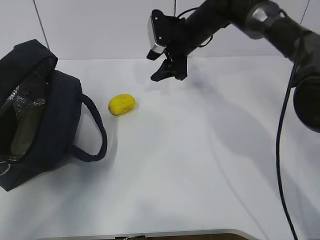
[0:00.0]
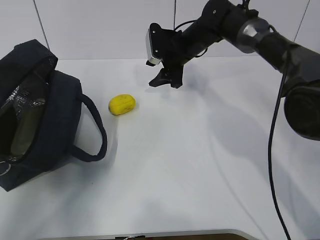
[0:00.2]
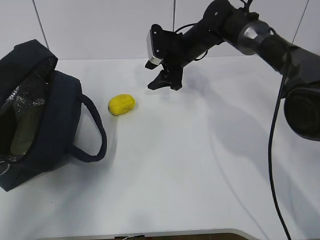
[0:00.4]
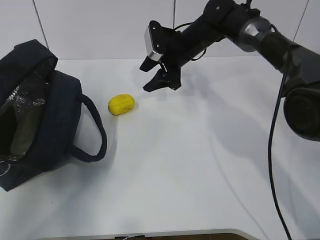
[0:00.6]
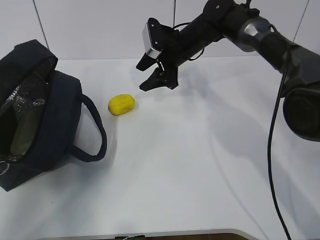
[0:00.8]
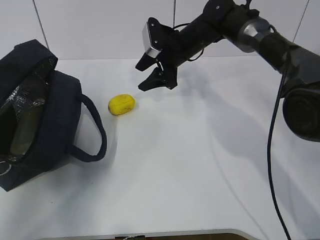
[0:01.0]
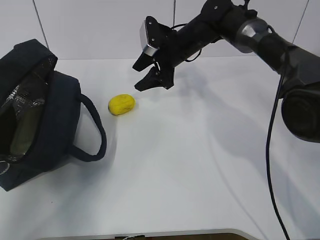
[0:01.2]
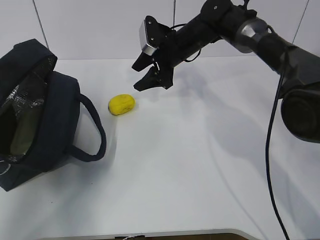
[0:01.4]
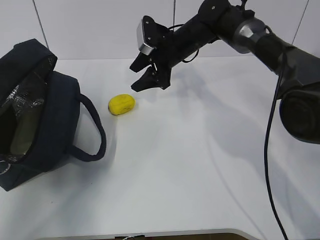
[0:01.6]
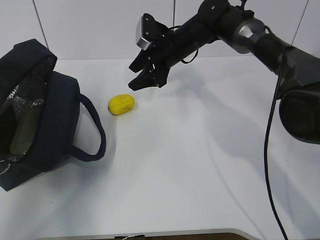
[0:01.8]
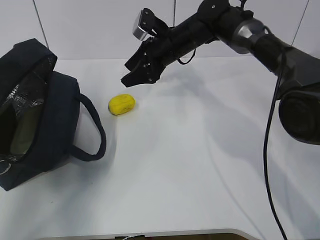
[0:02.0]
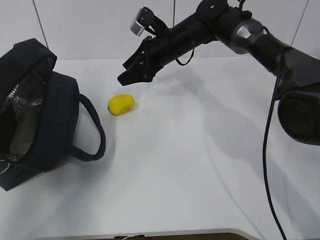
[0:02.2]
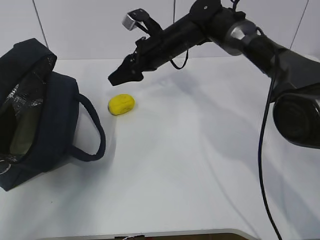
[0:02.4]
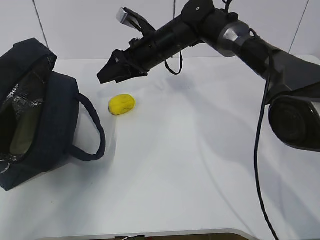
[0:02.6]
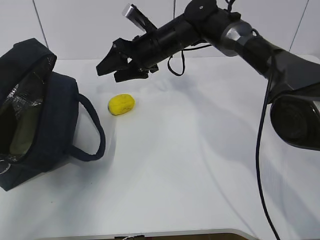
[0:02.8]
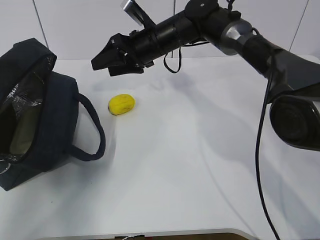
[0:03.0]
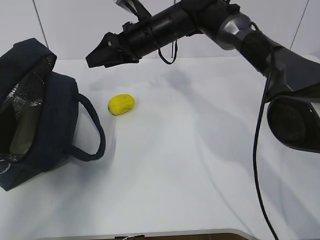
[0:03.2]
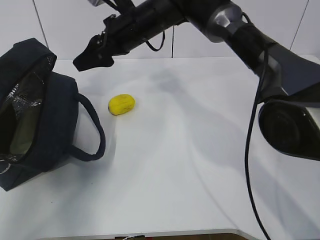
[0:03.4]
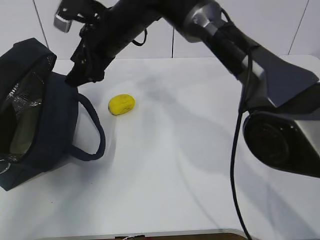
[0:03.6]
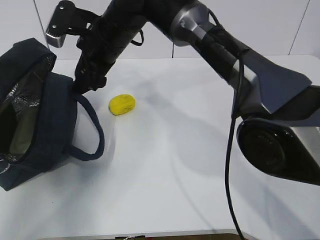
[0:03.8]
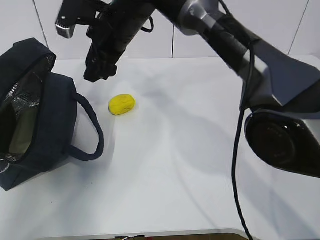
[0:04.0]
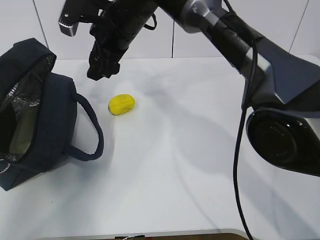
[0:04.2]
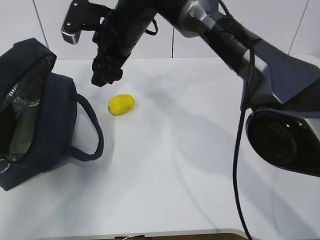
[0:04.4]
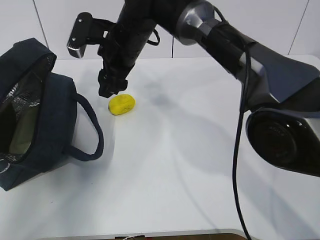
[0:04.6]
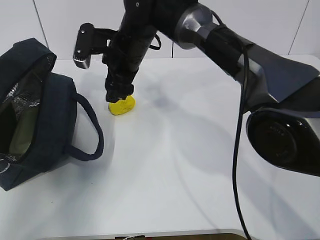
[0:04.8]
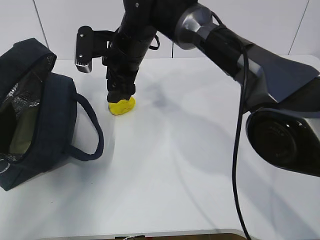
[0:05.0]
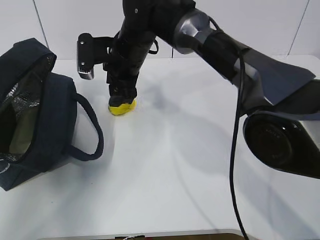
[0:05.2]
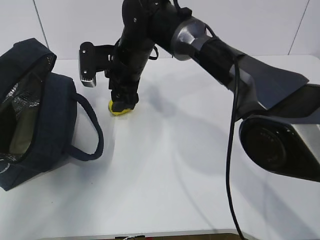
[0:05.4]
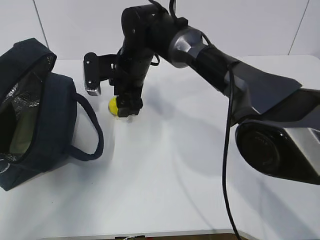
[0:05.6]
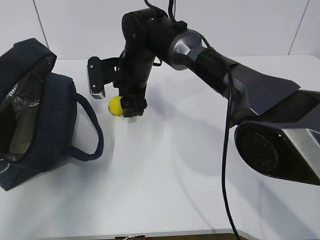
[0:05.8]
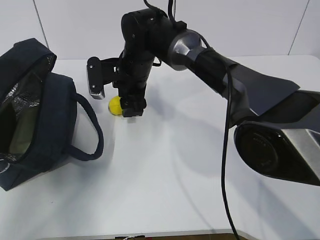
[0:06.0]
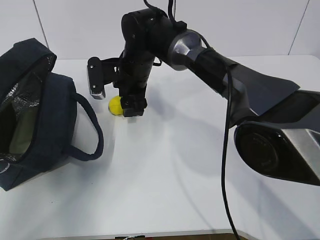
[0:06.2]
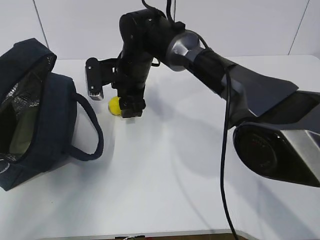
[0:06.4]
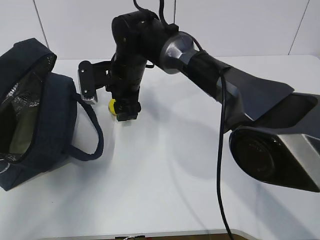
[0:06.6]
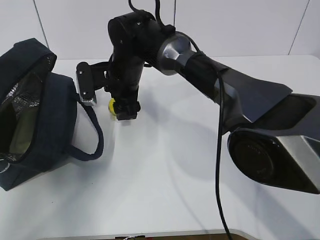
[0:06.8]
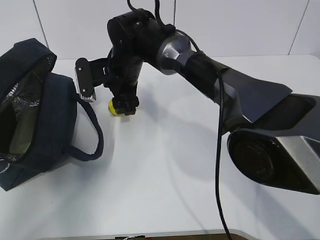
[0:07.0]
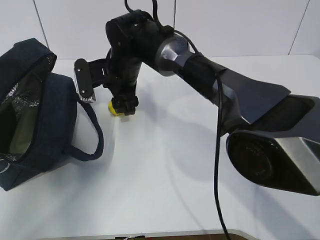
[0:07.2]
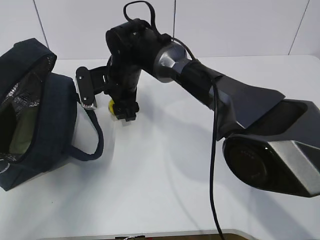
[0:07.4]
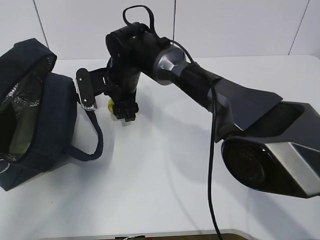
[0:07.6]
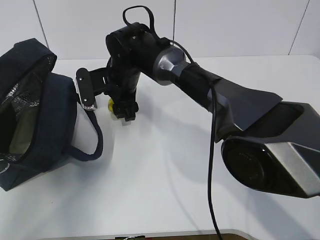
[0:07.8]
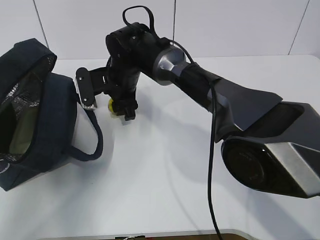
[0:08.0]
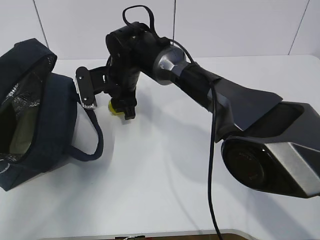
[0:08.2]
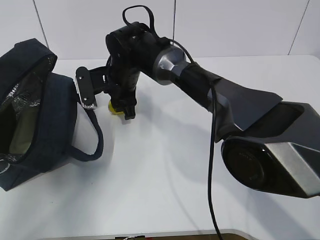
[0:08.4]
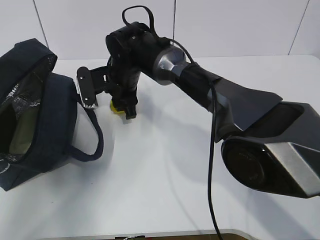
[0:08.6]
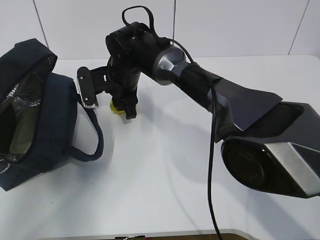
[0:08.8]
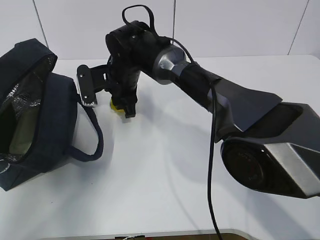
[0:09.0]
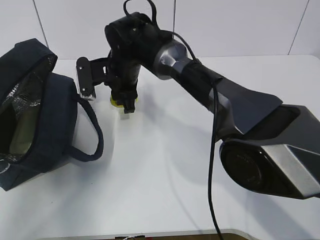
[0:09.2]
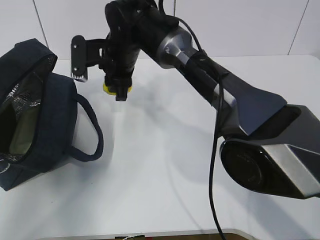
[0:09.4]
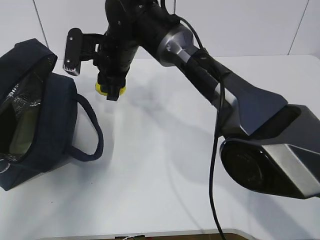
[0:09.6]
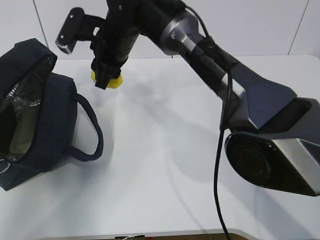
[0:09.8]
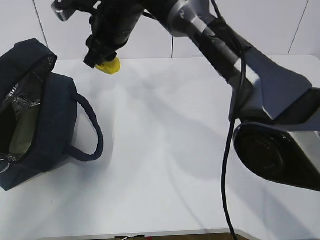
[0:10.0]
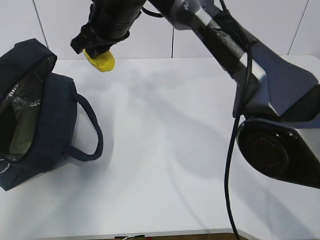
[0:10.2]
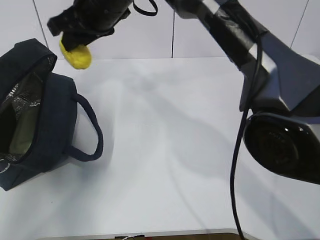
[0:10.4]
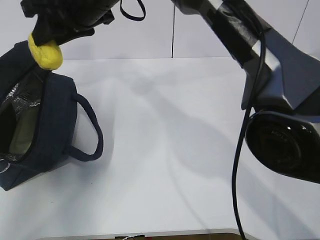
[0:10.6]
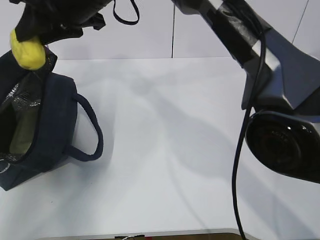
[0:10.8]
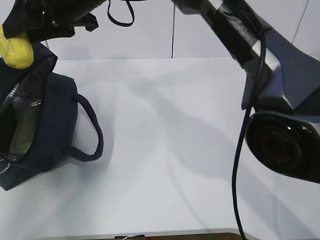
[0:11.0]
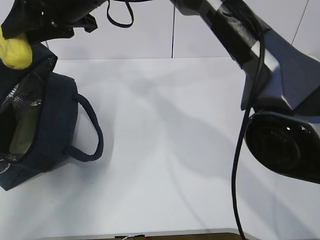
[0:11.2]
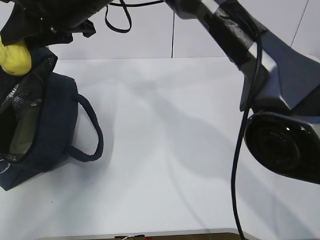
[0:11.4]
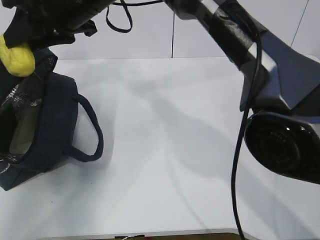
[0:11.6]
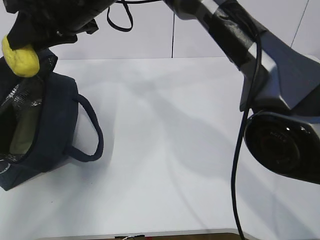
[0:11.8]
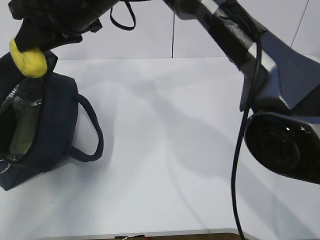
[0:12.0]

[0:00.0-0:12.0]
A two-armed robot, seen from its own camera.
Step, 0:07.2 to 0:09.6: Grab the lunch bag with your right hand.
0:00.0 to 0:01.6: There are only small adjustments of the grippers.
0:01.6 to 0:03.0: The right gripper changes place by about 5 cm.
0:03.0 to 0:04.4: The right gripper heads to the left and backward, covering approximately 10 cm.
0:04.4 to 0:06.0: The right gripper moves downward, roughly 10 cm.
0:07.6 to 0:09.0: The right gripper closes.
0:09.0 to 0:10.4: The right gripper goes some 15 cm upward.

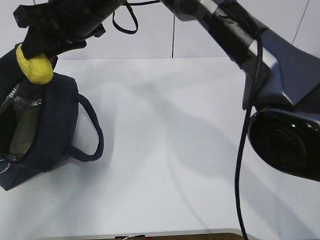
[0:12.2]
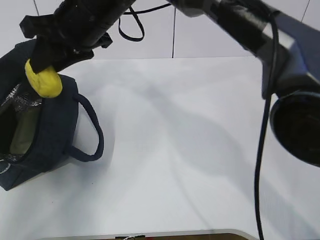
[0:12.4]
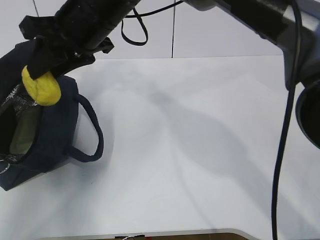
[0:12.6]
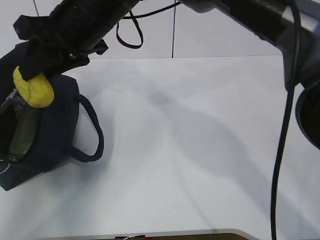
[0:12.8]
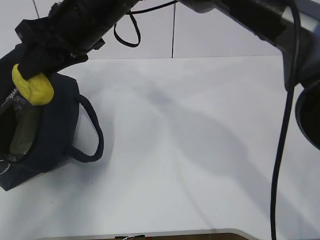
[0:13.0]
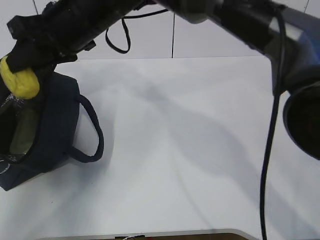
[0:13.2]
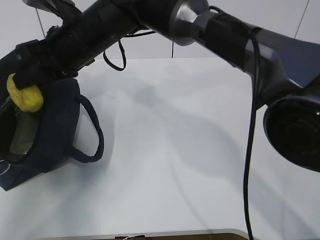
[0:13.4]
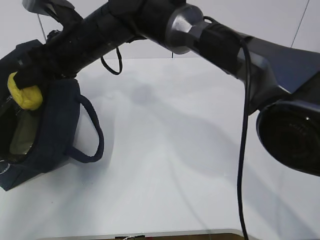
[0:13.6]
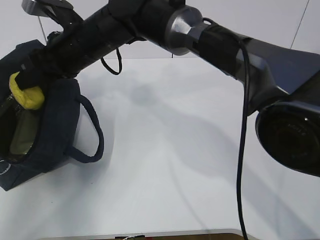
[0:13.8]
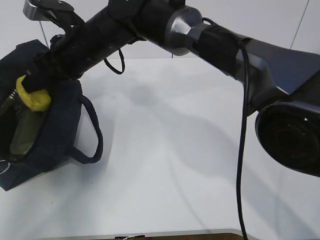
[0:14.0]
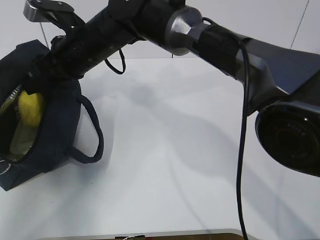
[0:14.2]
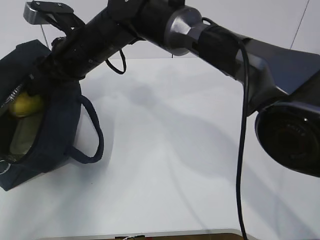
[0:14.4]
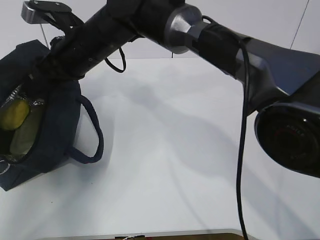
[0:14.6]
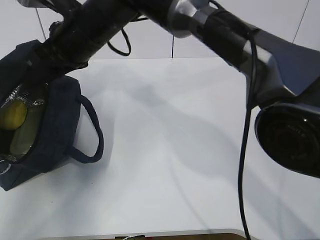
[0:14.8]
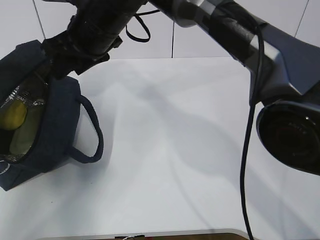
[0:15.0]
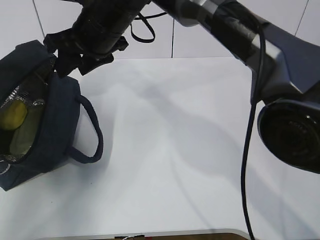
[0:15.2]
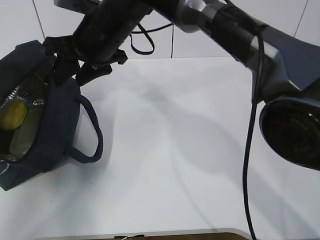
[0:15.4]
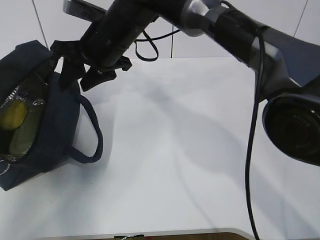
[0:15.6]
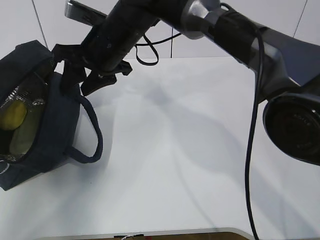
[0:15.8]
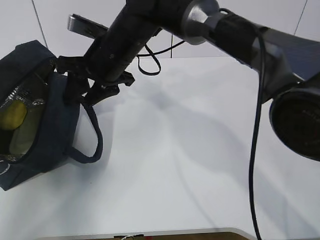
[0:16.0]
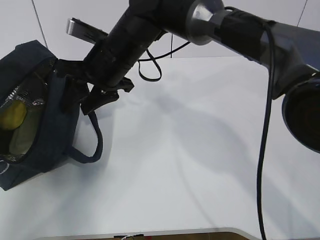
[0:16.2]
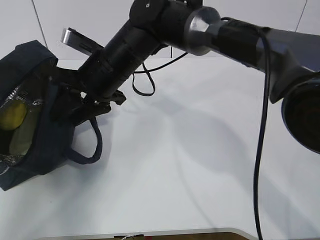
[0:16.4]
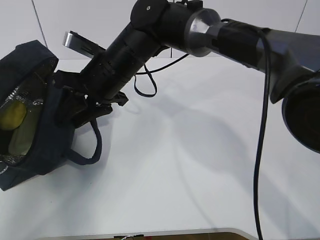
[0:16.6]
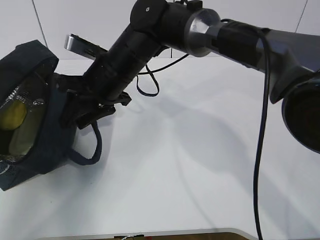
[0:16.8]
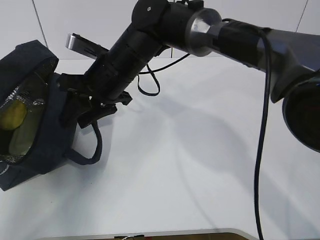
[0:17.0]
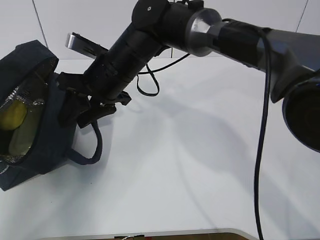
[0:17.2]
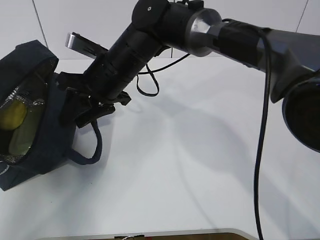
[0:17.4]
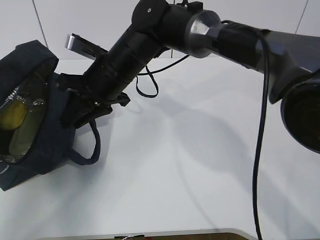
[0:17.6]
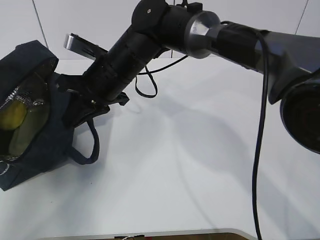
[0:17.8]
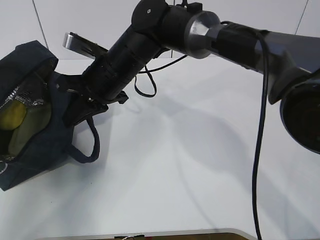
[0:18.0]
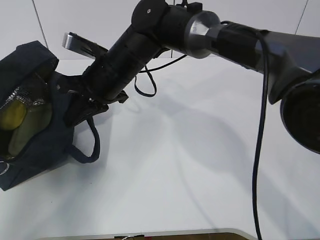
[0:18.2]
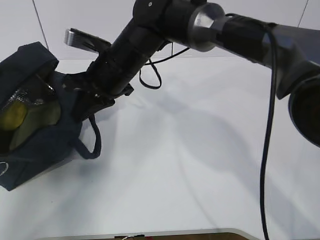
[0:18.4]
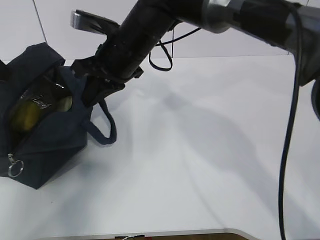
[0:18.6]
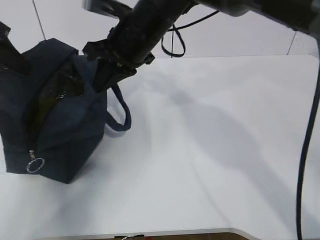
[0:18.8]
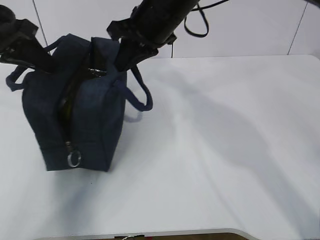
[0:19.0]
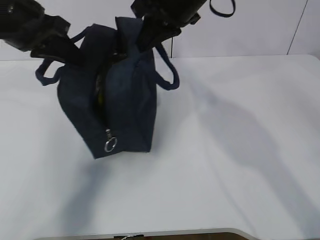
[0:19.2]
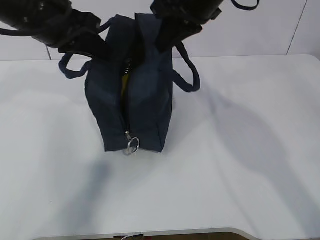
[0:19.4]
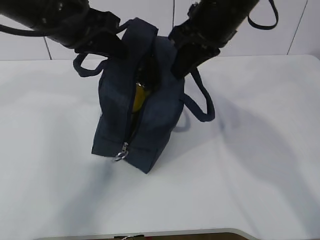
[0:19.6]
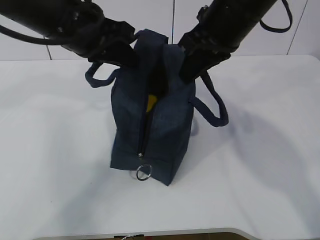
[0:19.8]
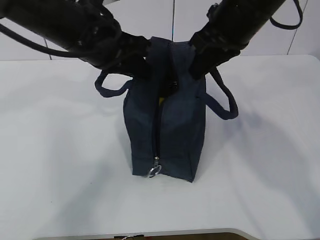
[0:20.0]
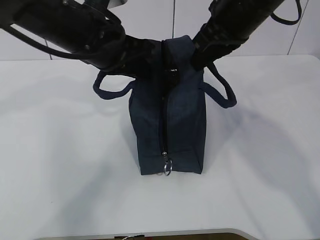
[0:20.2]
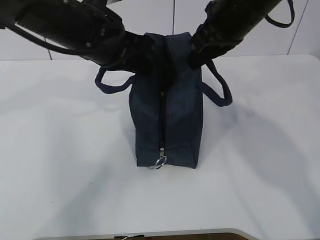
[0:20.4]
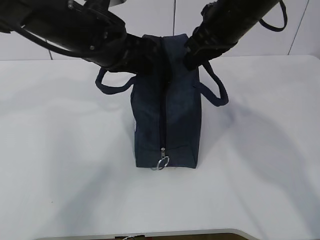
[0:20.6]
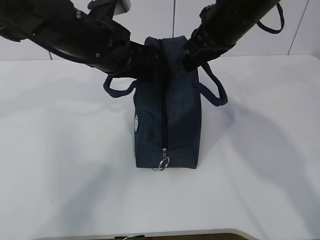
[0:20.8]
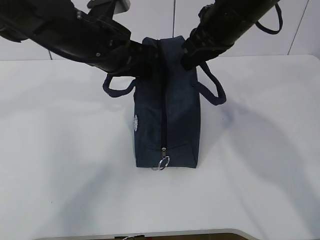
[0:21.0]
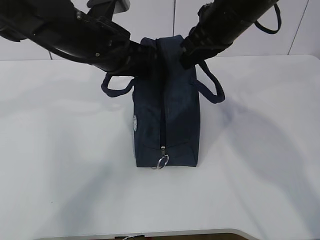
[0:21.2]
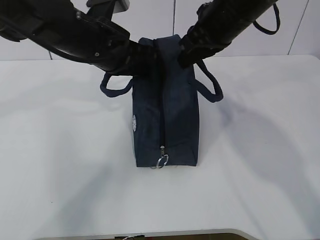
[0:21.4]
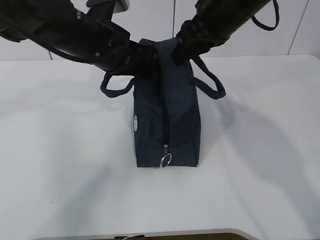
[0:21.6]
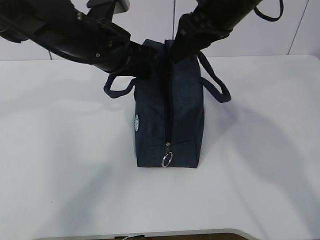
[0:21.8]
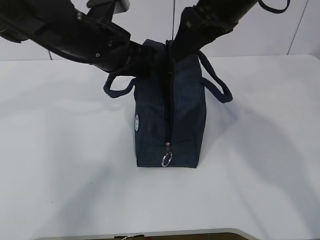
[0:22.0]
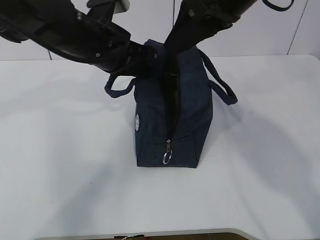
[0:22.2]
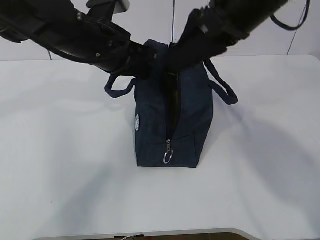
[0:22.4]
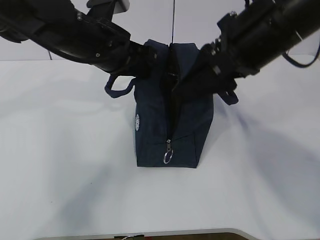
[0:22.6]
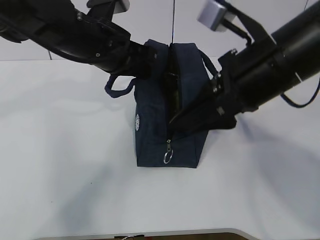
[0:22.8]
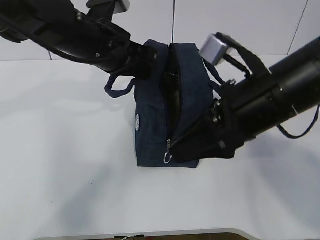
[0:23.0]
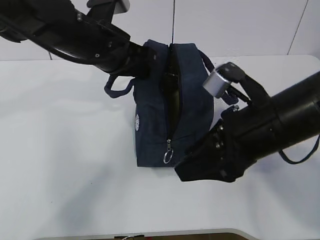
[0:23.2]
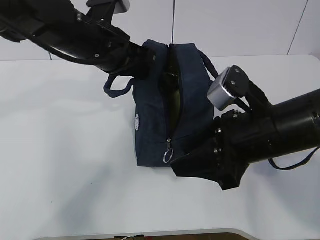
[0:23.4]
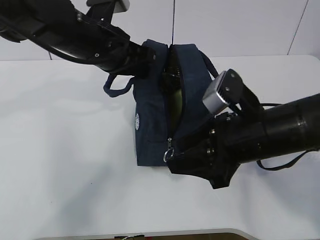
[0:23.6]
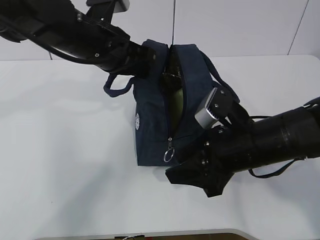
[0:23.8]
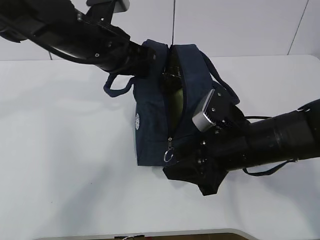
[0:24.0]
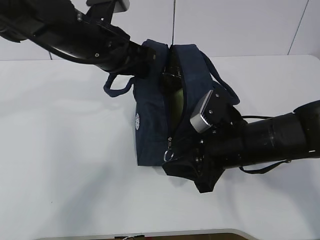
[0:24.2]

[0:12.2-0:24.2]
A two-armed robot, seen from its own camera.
0:12.2 to 0:13.8: The right gripper heads downward, covering some 5 cm.
0:15.2 to 0:16.6: The right gripper heads downward, covering approximately 5 cm.
0:16.6 to 0:18.2: The right gripper closes up.
0:18.2 to 0:19.8: The right gripper heads to the right and upward, covering some 20 cm, while the left gripper shifts roughly 25 cm to the right.
0:19.8 to 0:21.2: The left gripper ends up some 5 cm from where it was.
0:21.2 to 0:22.6: The right gripper travels backward by about 10 cm, and opens.
0:22.6 to 0:24.2: The right gripper goes some 15 cm downward.
